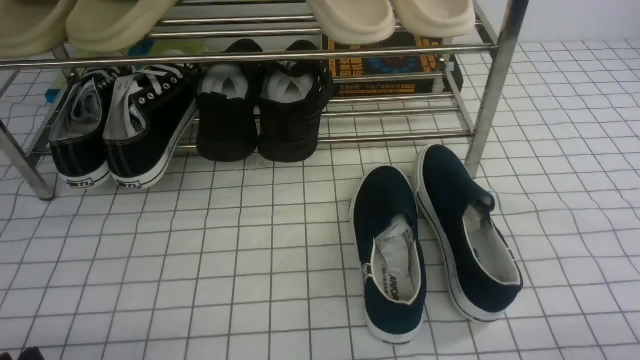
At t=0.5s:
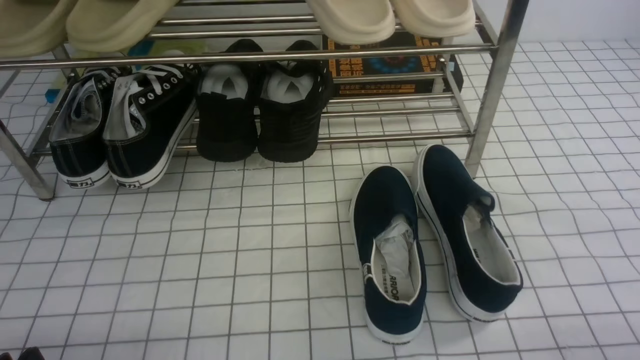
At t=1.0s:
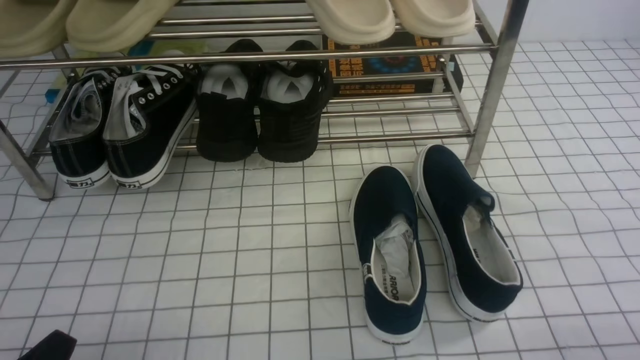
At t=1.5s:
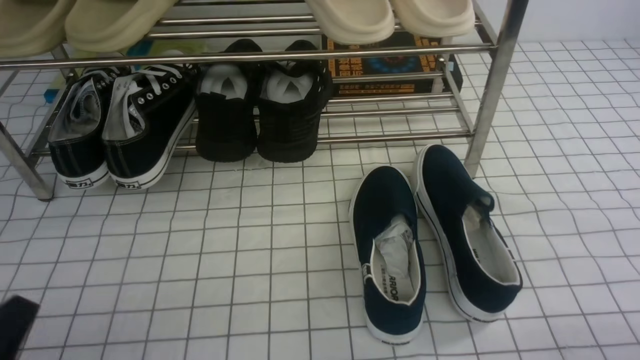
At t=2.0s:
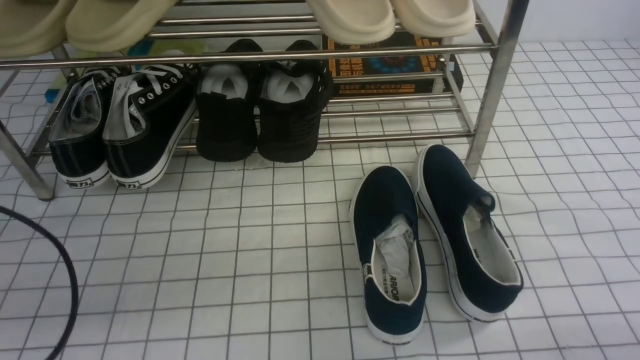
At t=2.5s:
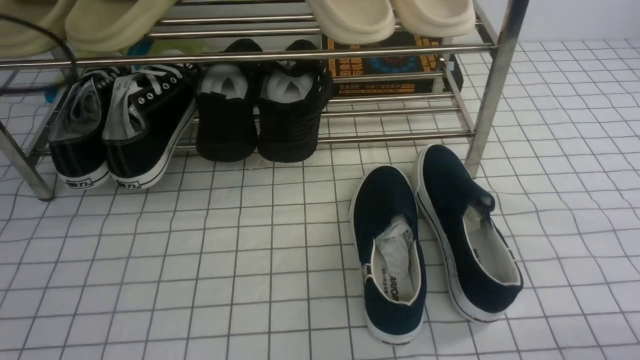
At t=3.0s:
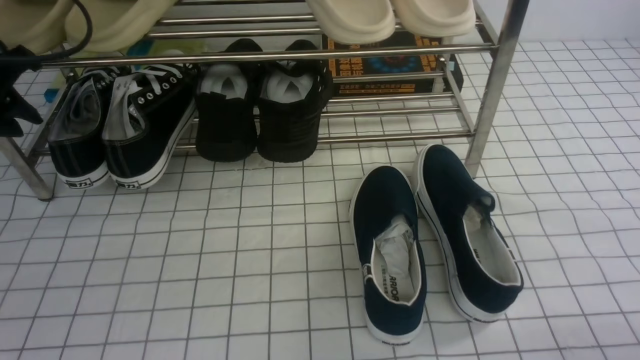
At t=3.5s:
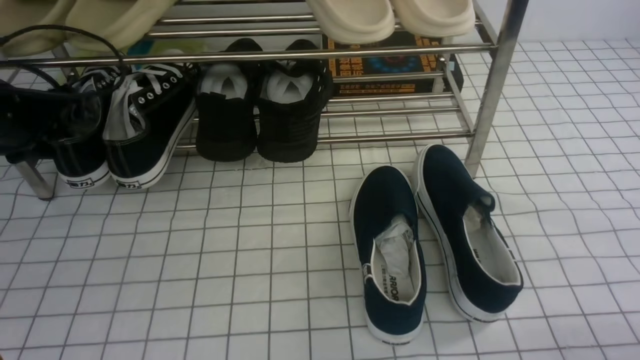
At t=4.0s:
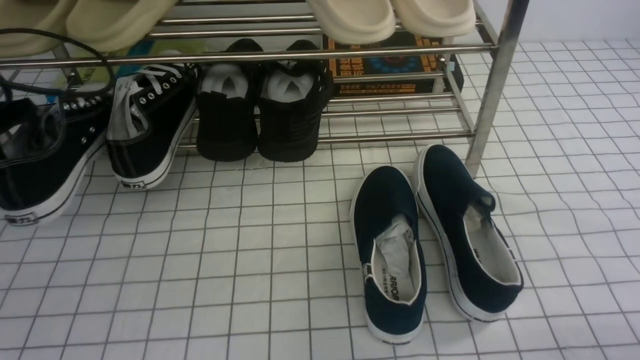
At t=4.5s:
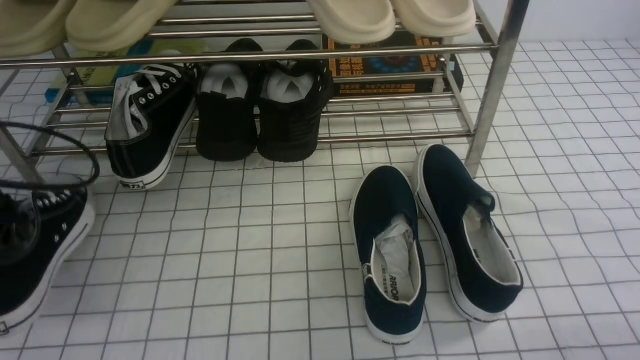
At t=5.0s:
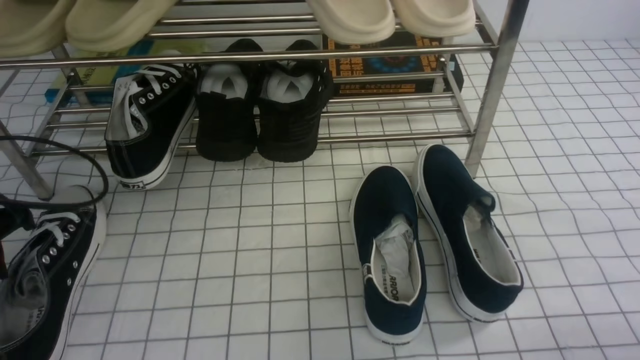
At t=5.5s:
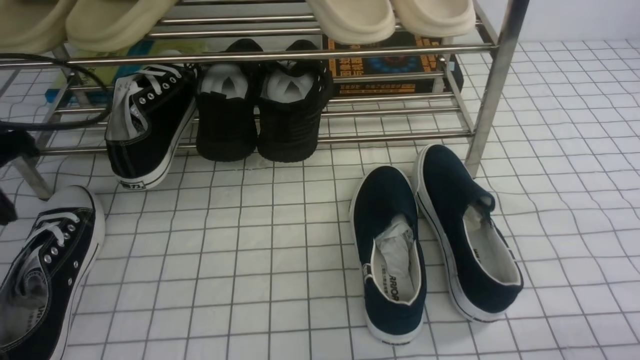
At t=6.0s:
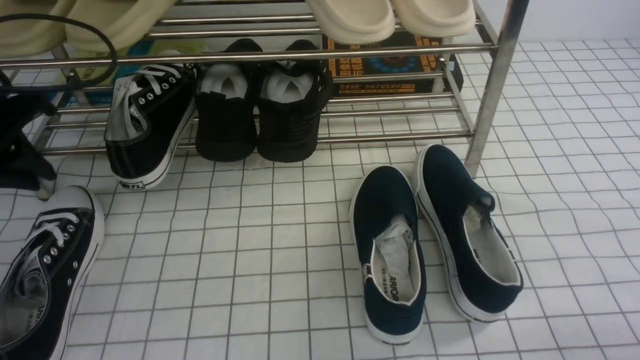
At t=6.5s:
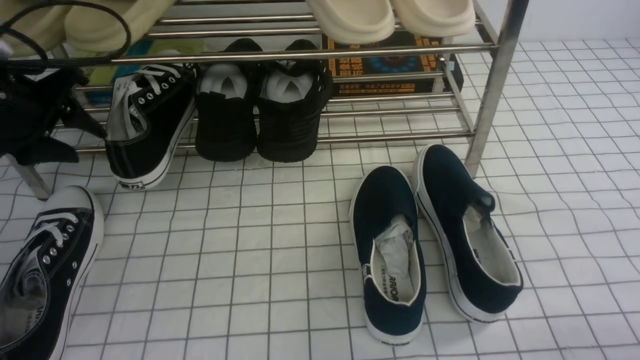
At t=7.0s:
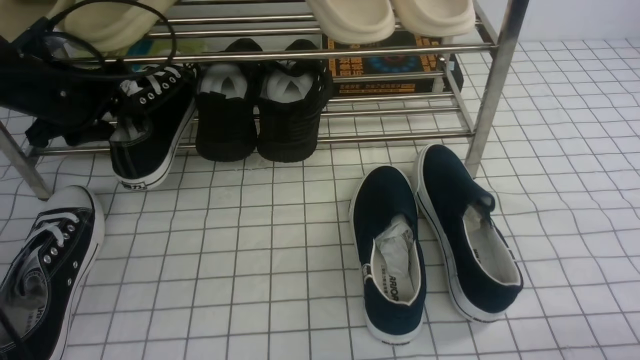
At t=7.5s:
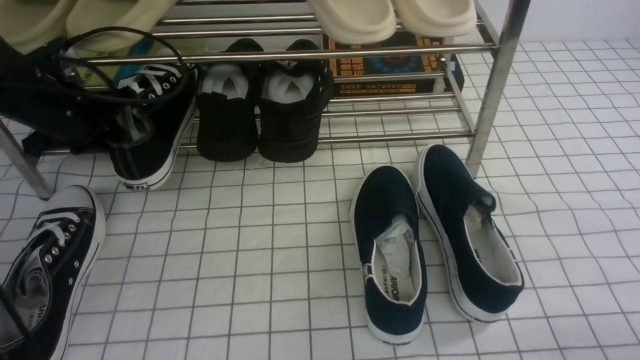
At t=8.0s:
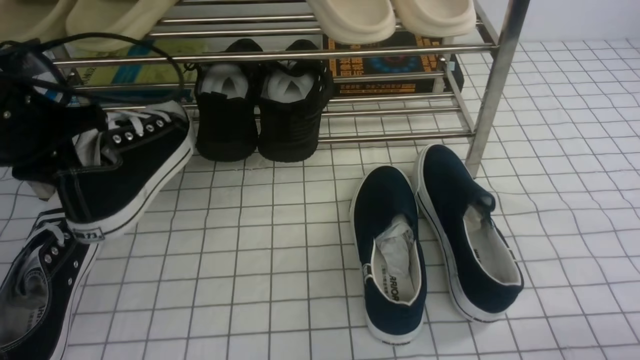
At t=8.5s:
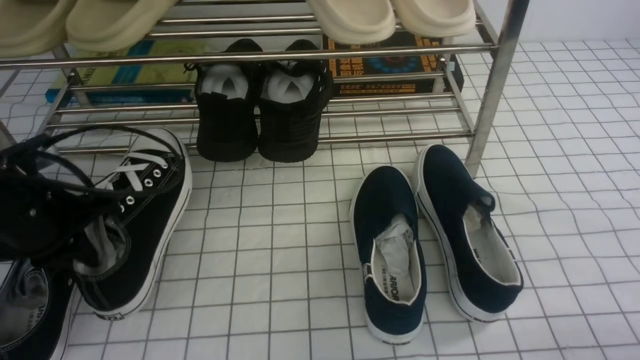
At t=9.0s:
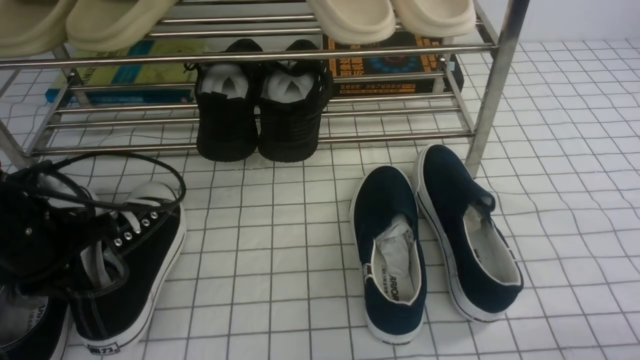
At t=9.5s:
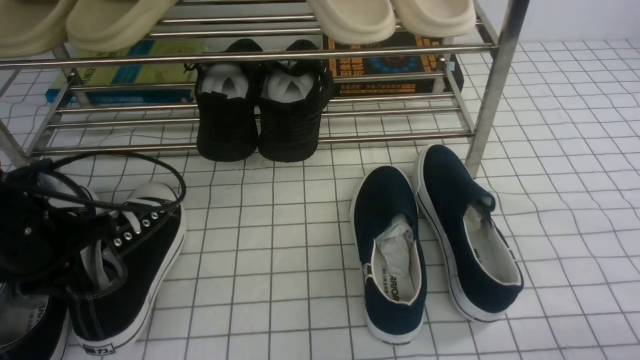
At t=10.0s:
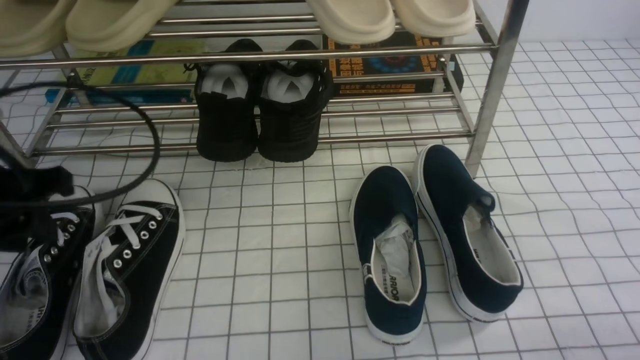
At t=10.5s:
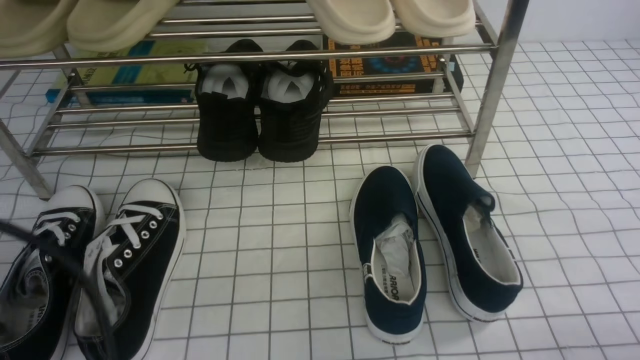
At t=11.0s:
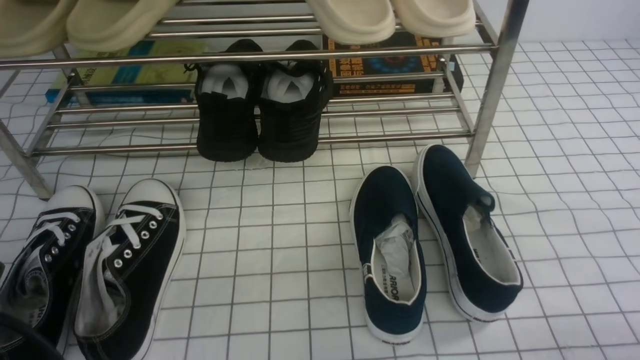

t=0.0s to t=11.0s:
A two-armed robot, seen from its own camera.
Step, t=0.0s to t=3.5s: use the left arm to clamp a shoe on the left side of the shoe rack.
Step, t=4.0s to t=5.0s: Use your left arm to remove the clamped shoe from the shoe rack and put it down.
Step, t=6.0s to t=7.5s: use the left arm to clamp a shoe on the left side of the shoe rack.
Step, t=8.0s to t=9.5s: Use your left arm to remove the clamped shoe from the shoe rack and put it down.
t=0.0s to t=2.0s: The left gripper moves upward and forward, about 15 cm, and closes its fingers.
t=2.0s to t=3.5s: The left gripper shifts some 25 cm forward, and opens its fingers.
t=3.5s to t=5.5s: The left gripper goes about 10 cm backward.
t=5.5s to t=7.5s: The left gripper is displaced forward and downward by roughly 15 cm, and opens, then closes once more.
t=7.5s to t=9.0s: The left gripper heads backward, covering about 15 cm.
t=9.0s to t=11.0s: The left gripper goes approximately 20 cm backward, and opens, then closes once more.

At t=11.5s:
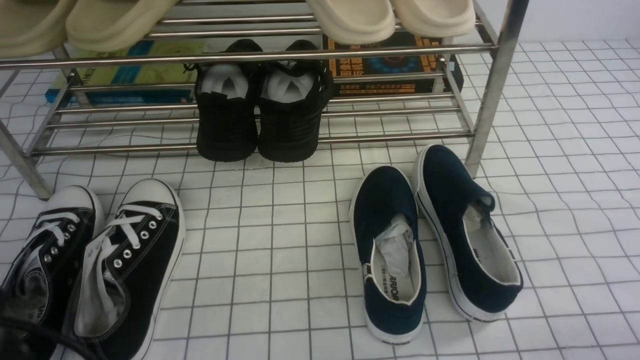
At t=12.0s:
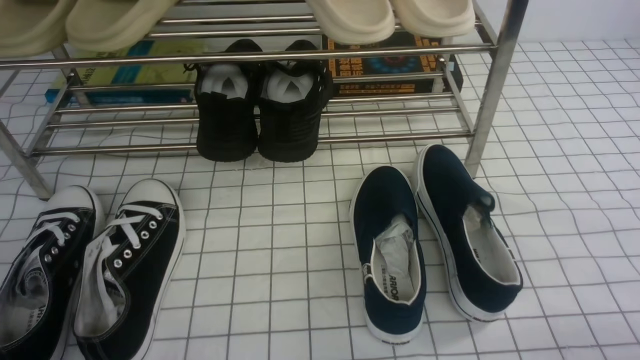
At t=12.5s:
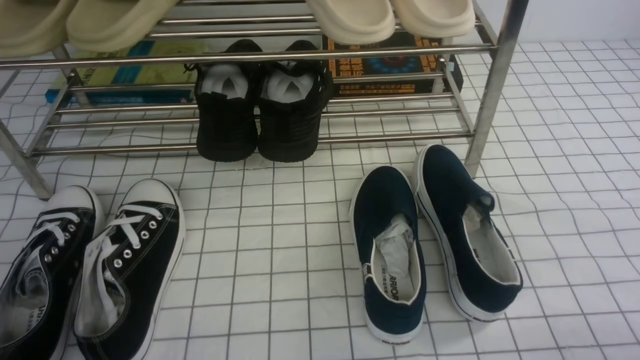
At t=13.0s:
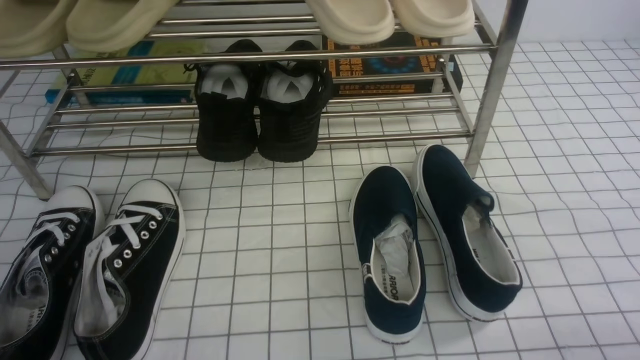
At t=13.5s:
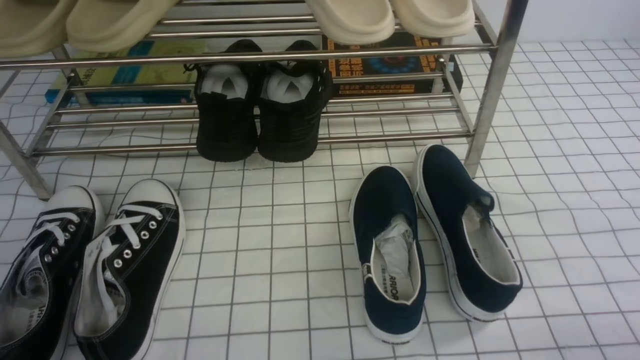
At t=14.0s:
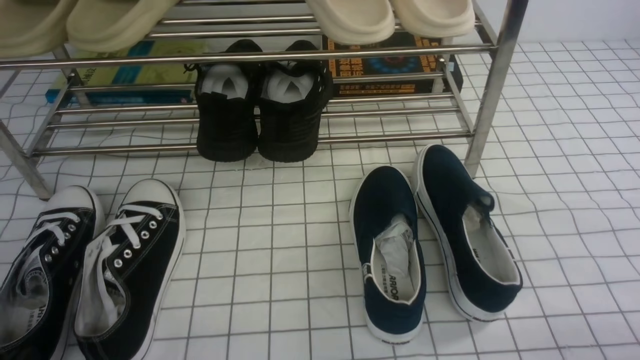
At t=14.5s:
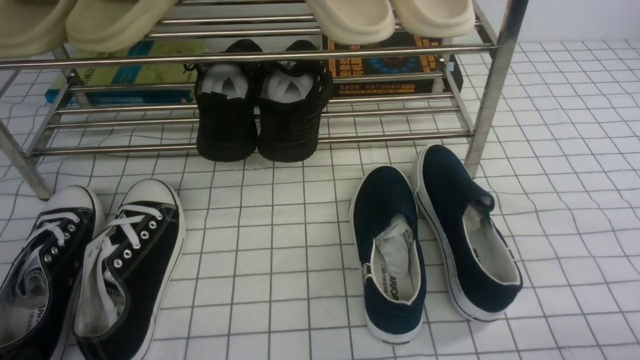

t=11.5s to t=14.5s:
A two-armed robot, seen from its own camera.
t=11.5s to t=13.0s: The left gripper moves downward, some 5 cm.
t=13.0s to t=14.5s: Both grippers stay put.

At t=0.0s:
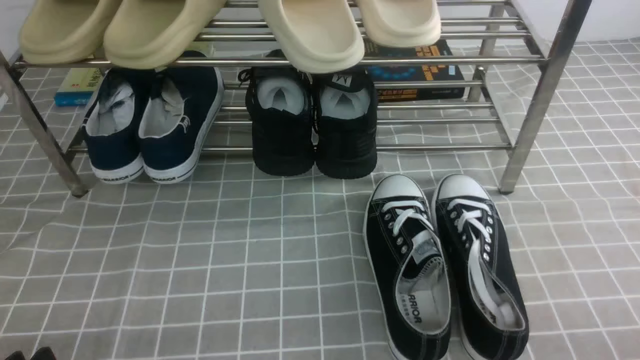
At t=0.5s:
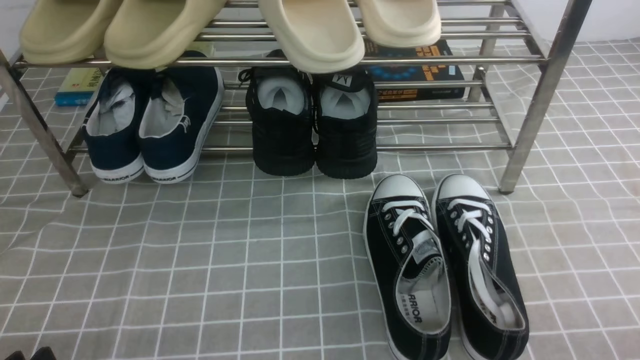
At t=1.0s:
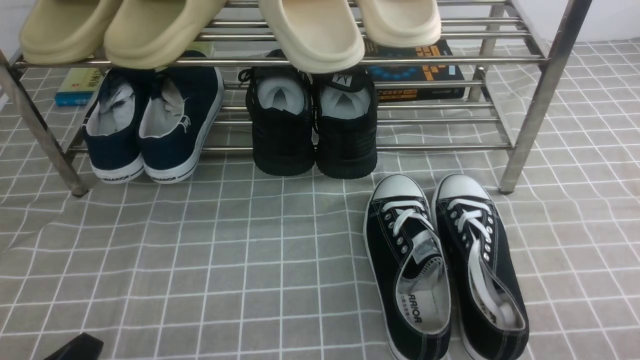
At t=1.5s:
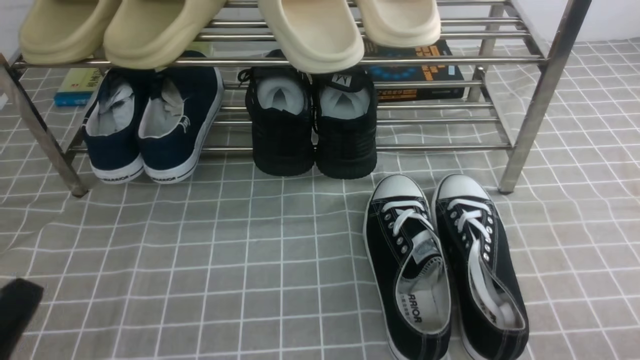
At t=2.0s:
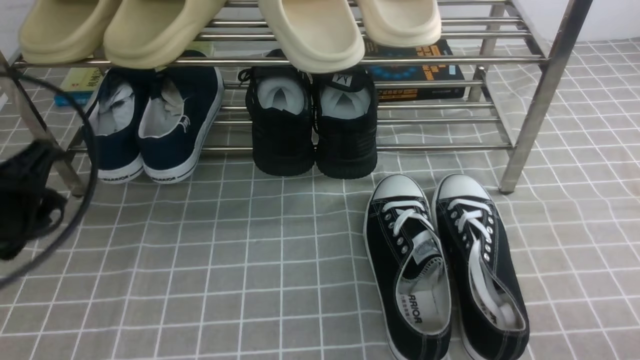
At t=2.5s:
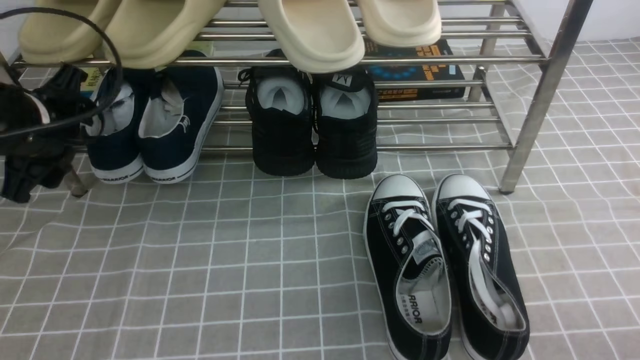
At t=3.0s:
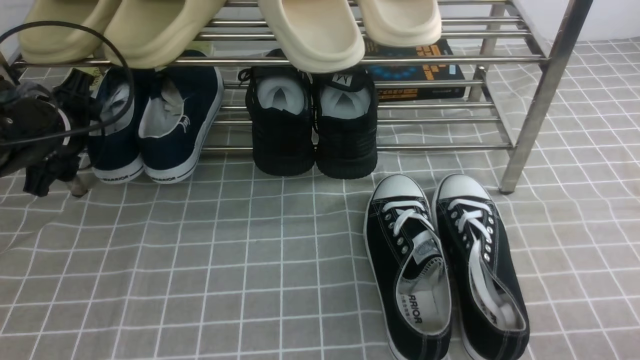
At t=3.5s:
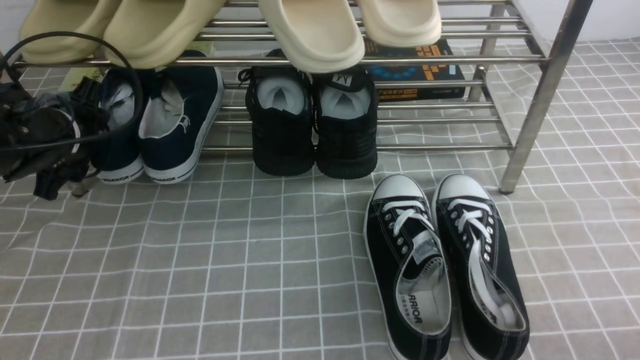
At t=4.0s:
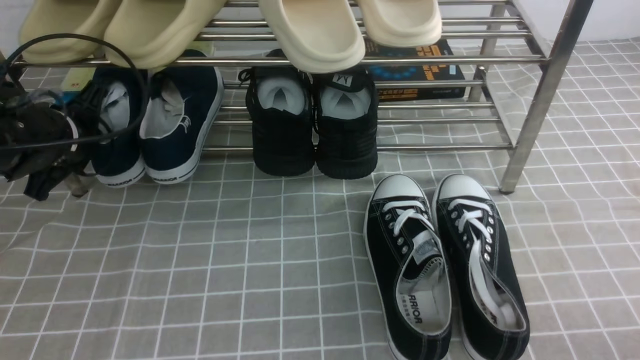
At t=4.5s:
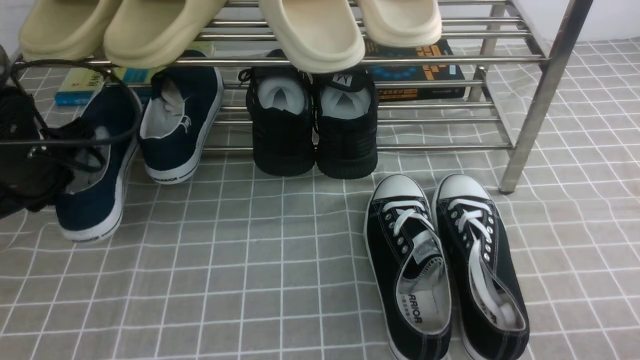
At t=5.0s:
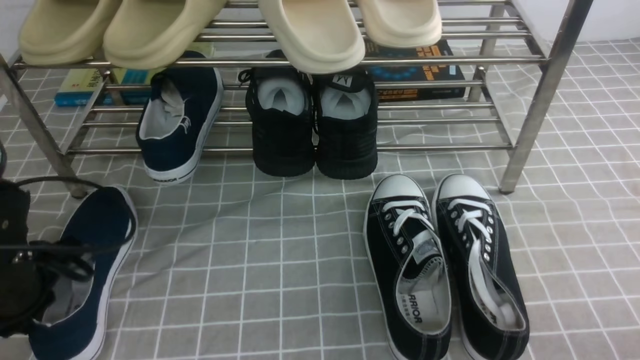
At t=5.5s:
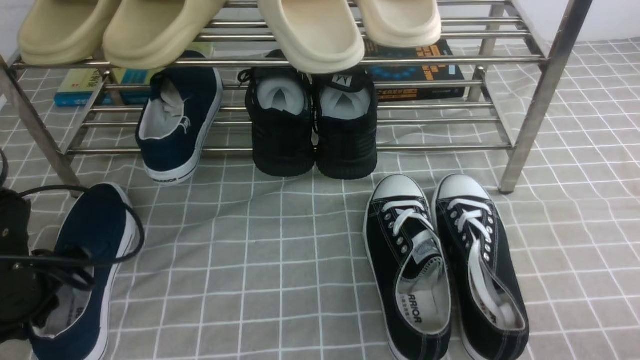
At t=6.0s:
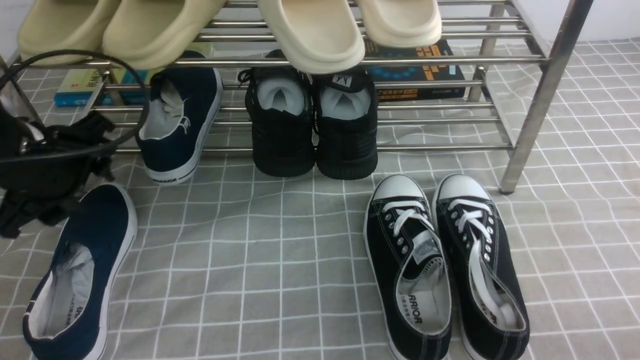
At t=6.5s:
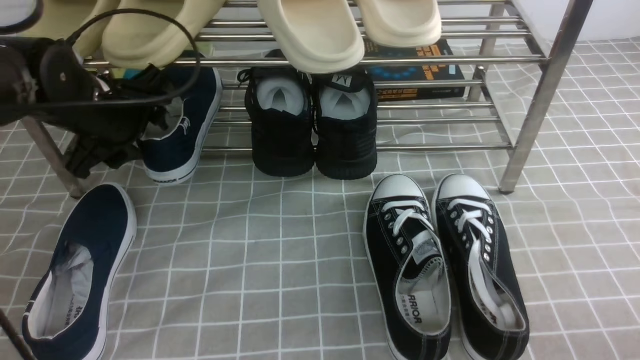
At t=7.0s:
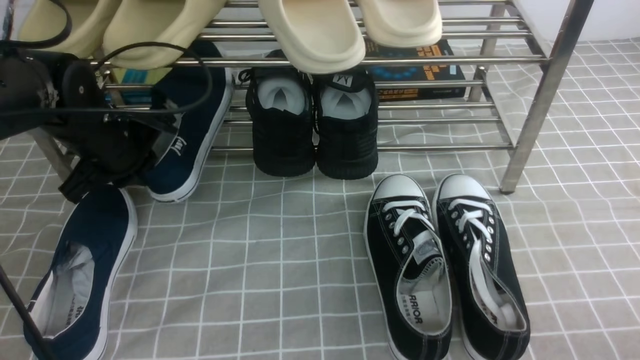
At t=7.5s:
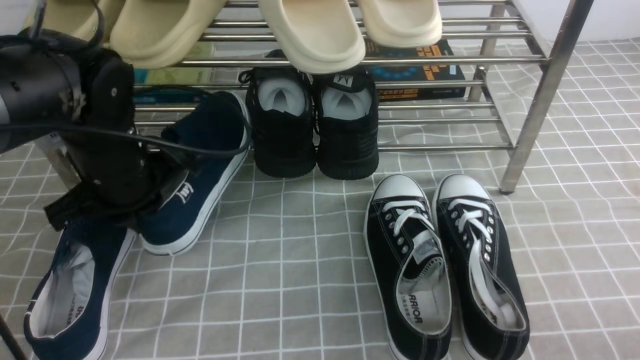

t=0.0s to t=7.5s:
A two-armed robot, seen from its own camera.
Step, t=0.0s to t=4.0s: use the left arm to clamp a shoe on the left side of the shoe rack.
Step, t=4.5s to t=5.5s: Use your left arm to remove the clamped shoe from the shoe rack and put it down.
Step, t=6.0s to t=7.0s: use the left arm to clamp a shoe on the left side of the shoe rack.
t=0.0s to t=2.0s: The left gripper moves forward and upward, approximately 20 cm, and closes and opens again.
t=2.0s to t=4.0s: The left gripper heads forward, covering approximately 15 cm, and closes.
t=4.0s to t=5.5s: The left gripper is displaced backward by approximately 10 cm.
t=5.5s to t=7.5s: The left gripper moves to the right and forward, about 10 cm, and opens, then closes again.
